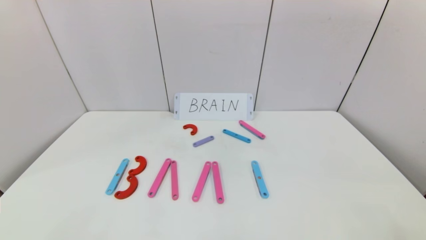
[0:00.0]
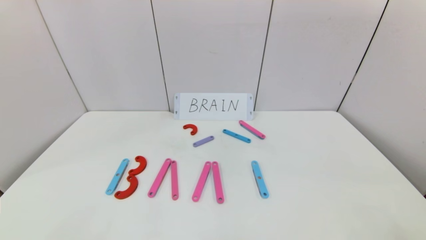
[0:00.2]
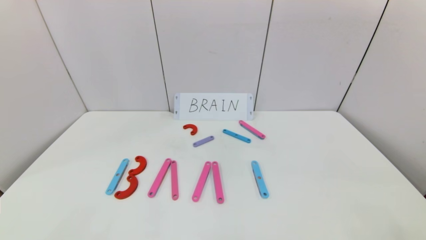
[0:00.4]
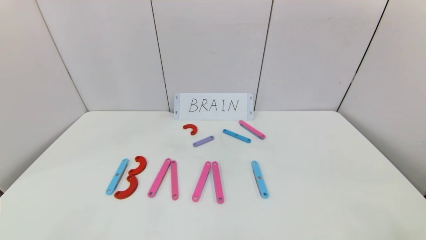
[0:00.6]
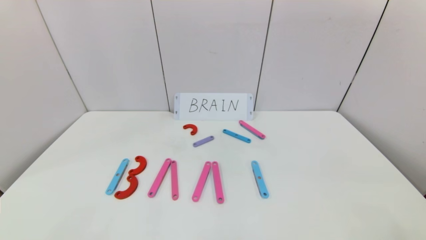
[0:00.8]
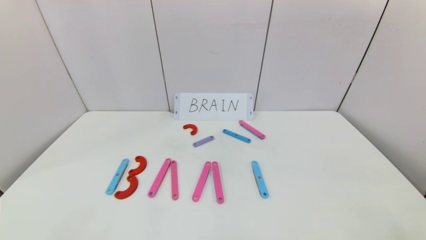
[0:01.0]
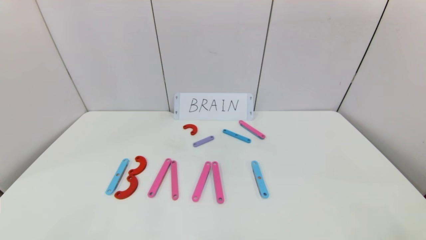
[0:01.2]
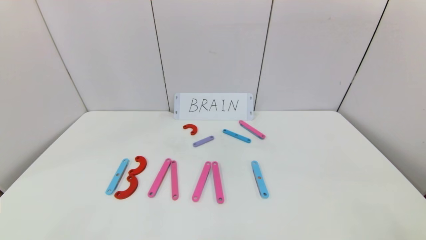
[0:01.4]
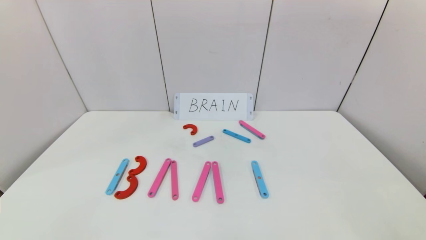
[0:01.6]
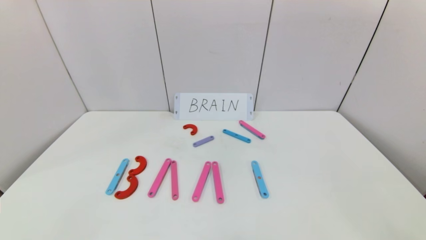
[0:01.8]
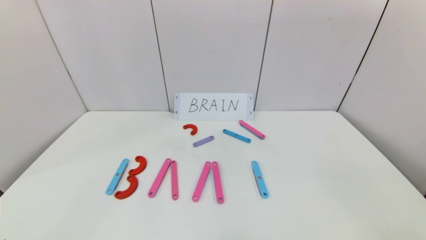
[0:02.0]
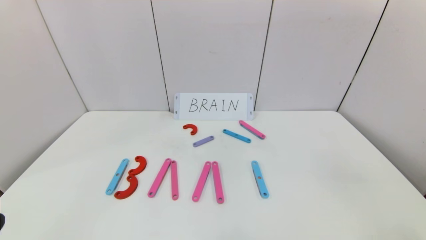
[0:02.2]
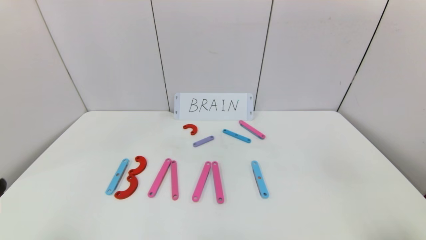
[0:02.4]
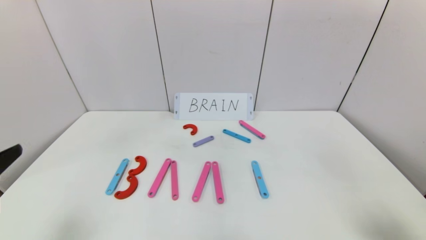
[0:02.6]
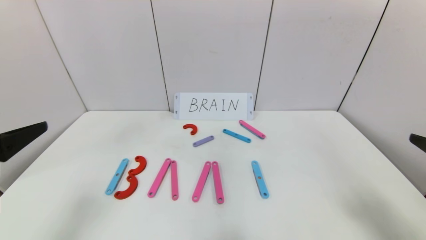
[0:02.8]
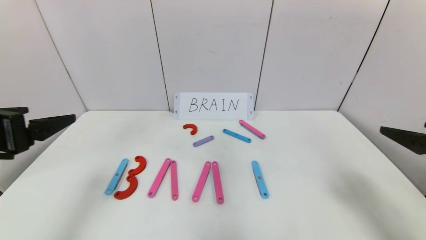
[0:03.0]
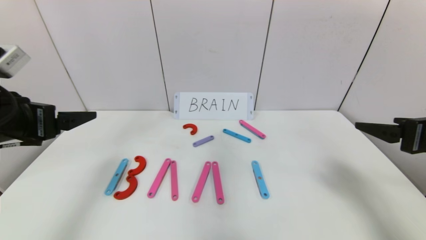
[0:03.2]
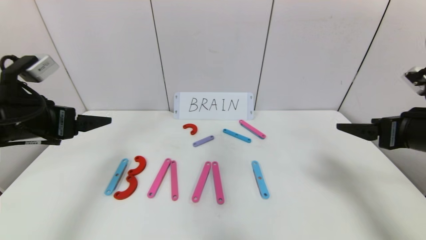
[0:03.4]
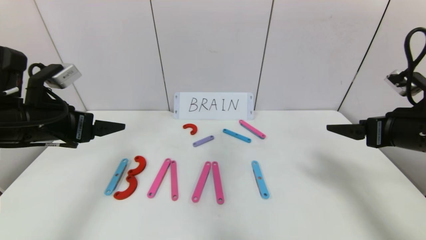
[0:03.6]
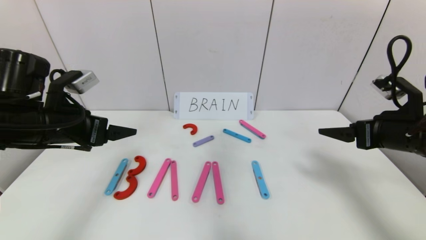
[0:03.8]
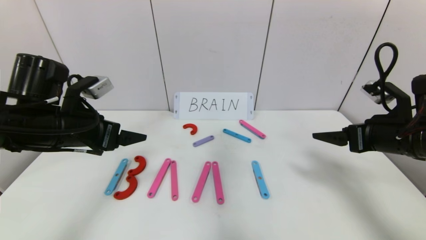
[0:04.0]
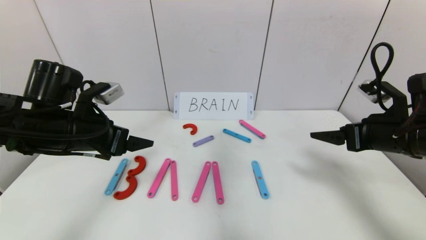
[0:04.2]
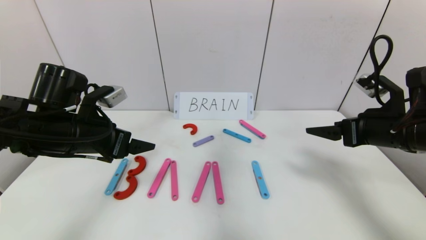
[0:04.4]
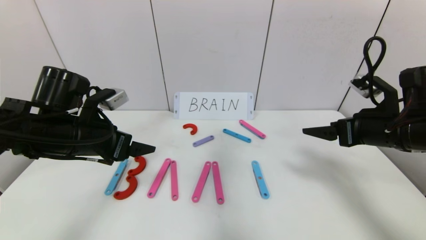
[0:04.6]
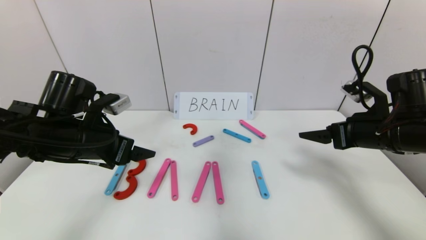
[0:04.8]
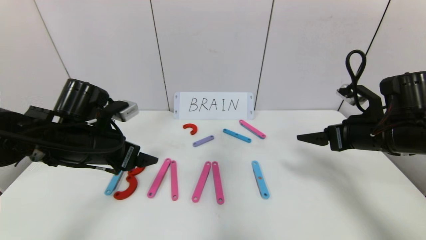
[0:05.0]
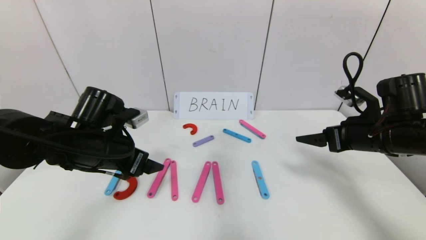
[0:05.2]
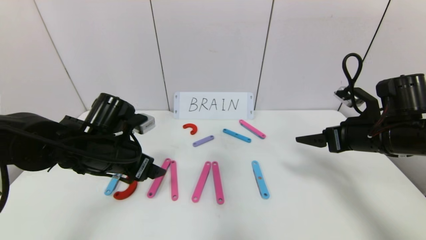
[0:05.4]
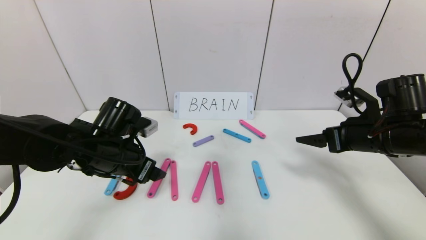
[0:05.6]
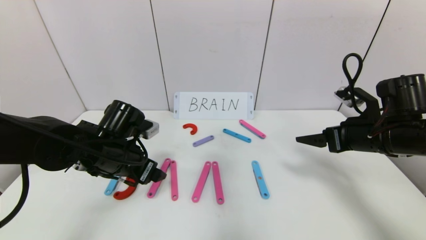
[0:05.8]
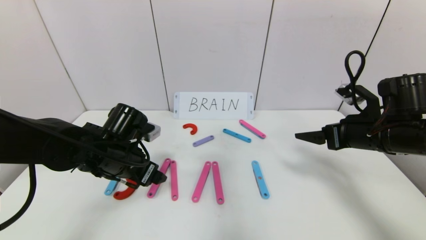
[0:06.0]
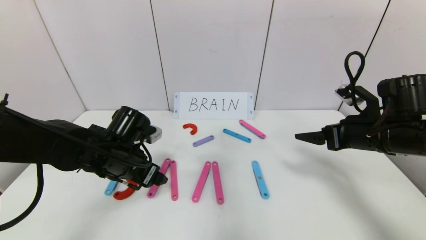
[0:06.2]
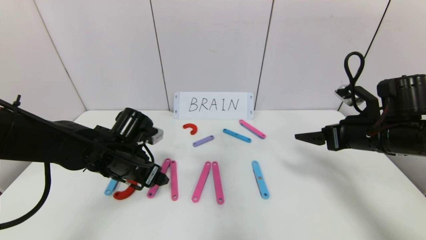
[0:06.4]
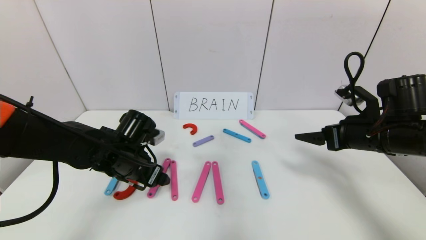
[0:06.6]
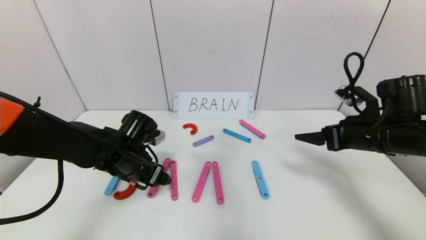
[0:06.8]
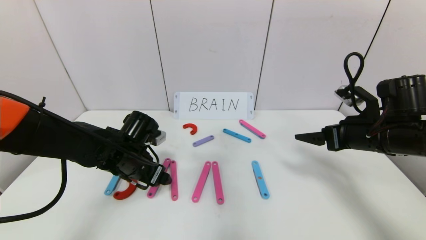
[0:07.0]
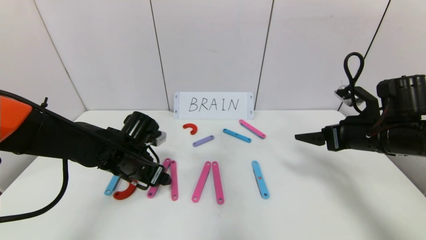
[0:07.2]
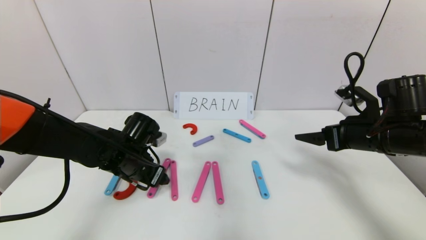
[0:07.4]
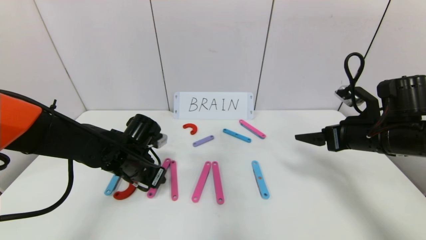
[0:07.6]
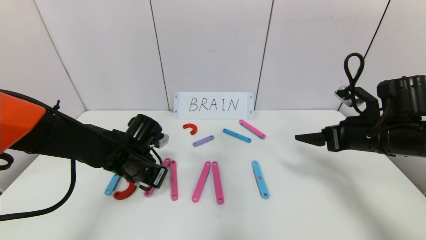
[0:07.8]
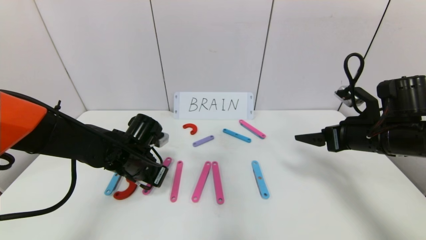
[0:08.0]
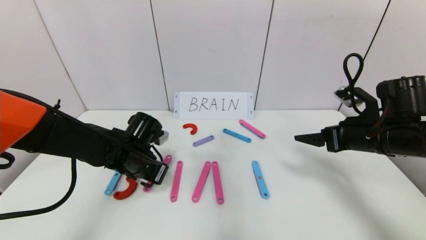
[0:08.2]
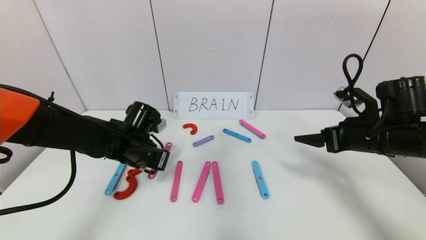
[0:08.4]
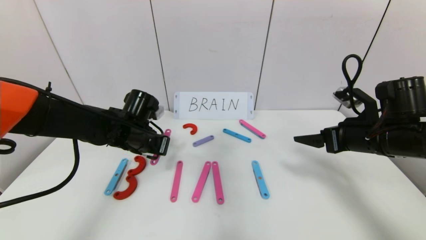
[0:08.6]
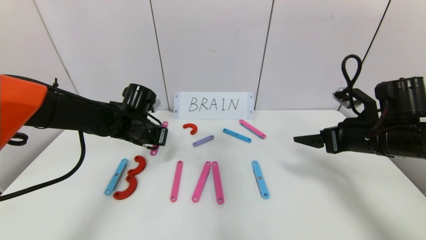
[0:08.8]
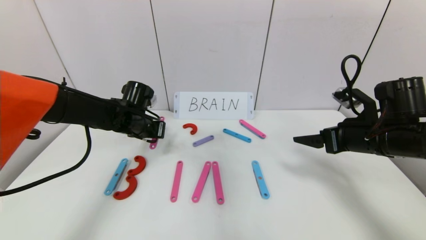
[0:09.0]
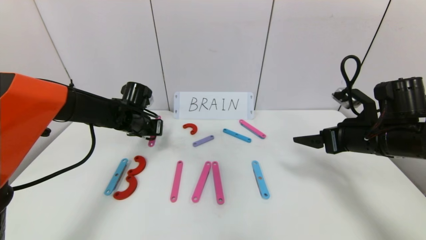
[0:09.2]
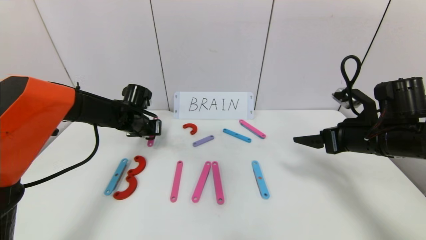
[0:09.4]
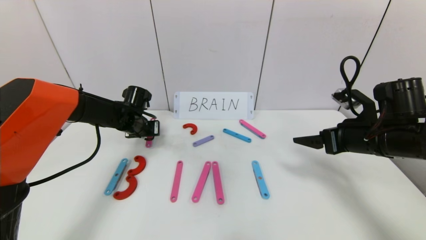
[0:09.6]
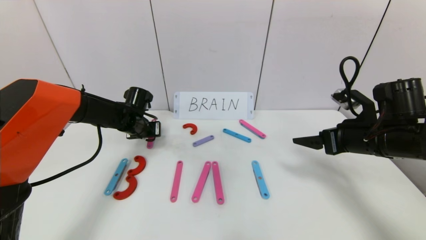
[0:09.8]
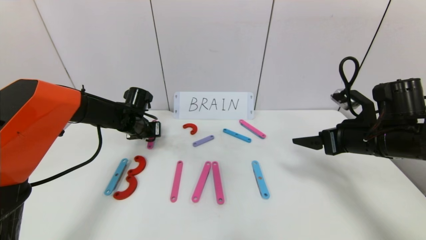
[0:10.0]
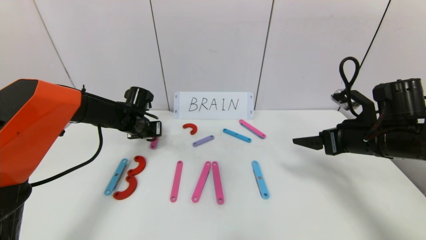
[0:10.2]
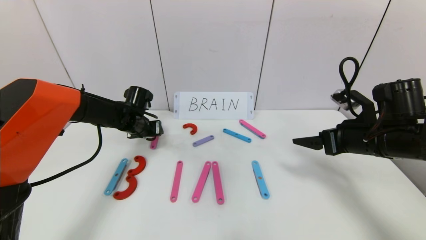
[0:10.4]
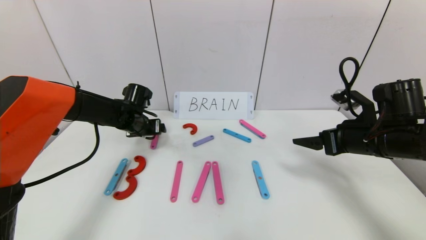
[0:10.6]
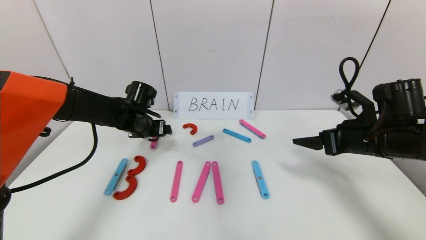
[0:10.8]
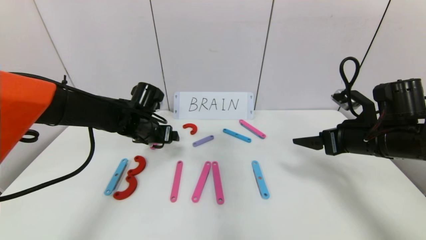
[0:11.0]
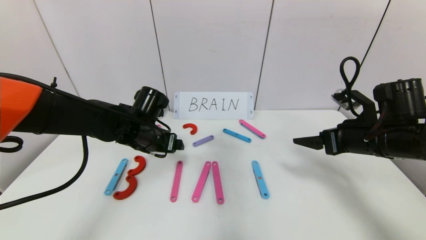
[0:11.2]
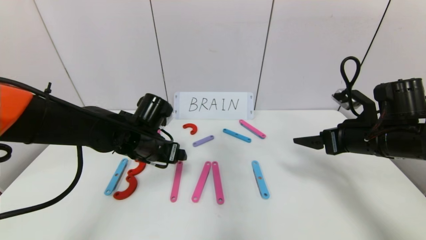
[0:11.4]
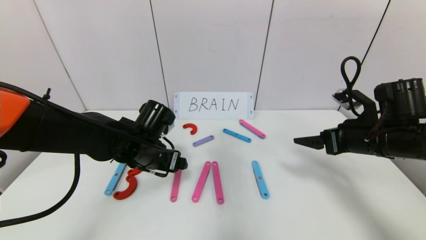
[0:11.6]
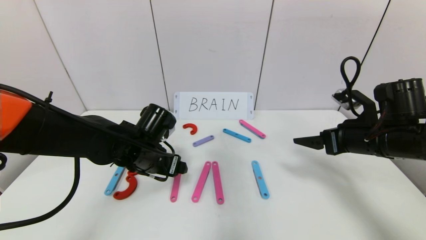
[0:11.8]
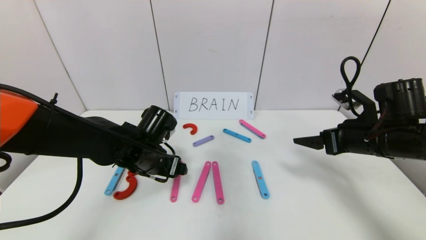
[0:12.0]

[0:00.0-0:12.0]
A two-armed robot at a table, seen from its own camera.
Task of the whole recording: rearrange the word baai as brain.
0:01.6 to 0:03.0: The two grippers go about 25 cm forward and upward.
0:03.0 to 0:04.4: The right gripper goes roughly 10 cm forward. Meanwhile the left gripper travels forward, to the right and downward by some 15 cm.
0:04.4 to 0:06.0: The left gripper moves downward, some 10 cm.
0:06.0 to 0:07.6: The left gripper closes.
0:07.6 to 0:09.0: The left gripper heads forward, covering approximately 10 cm, and closes.
0:09.0 to 0:10.4: The left gripper opens.
0:10.4 to 0:12.0: The left gripper goes some 15 cm backward and to the right.

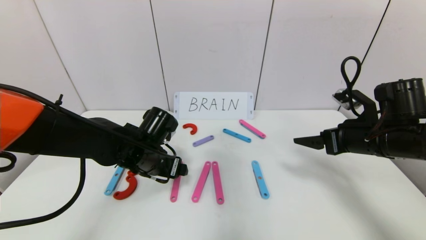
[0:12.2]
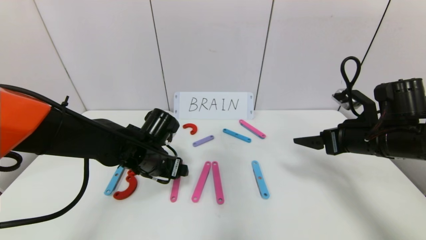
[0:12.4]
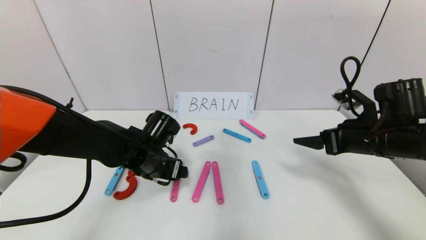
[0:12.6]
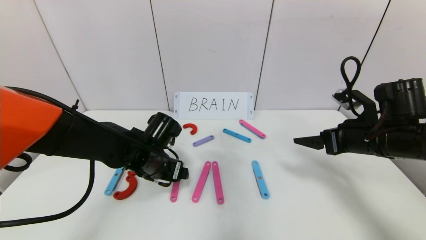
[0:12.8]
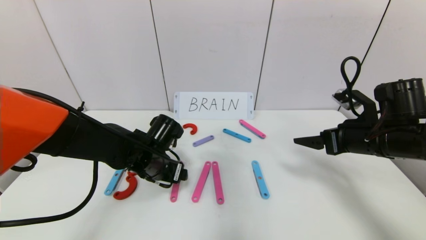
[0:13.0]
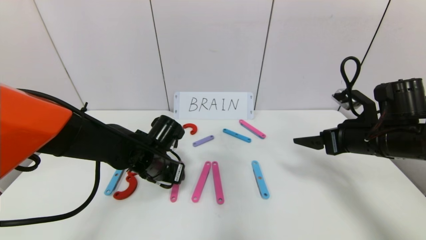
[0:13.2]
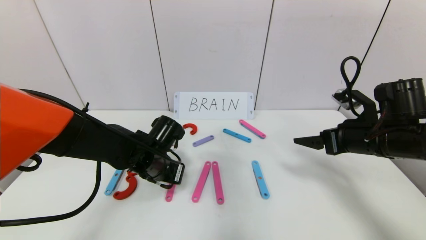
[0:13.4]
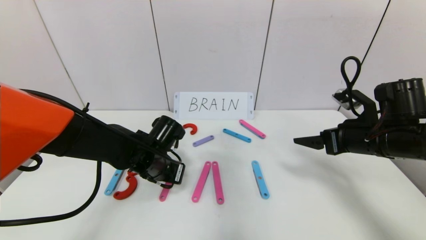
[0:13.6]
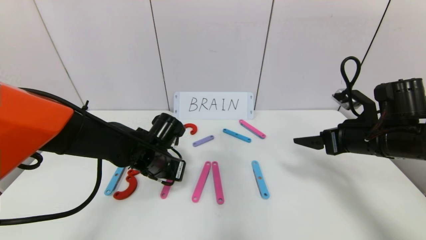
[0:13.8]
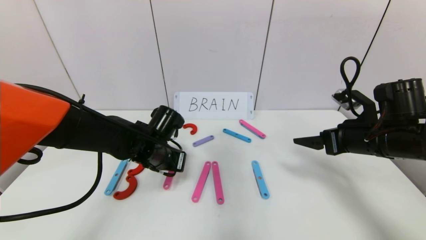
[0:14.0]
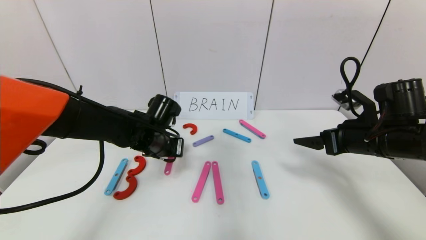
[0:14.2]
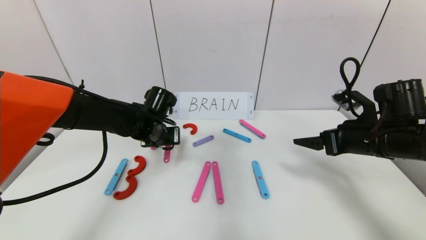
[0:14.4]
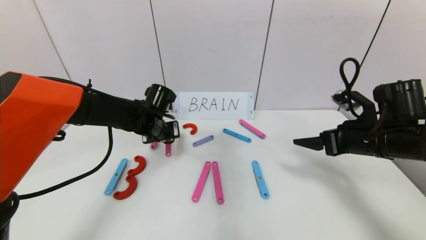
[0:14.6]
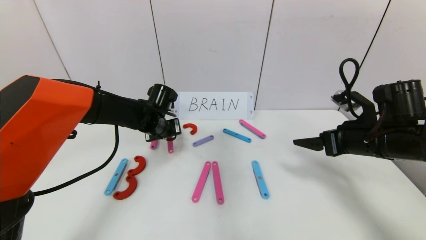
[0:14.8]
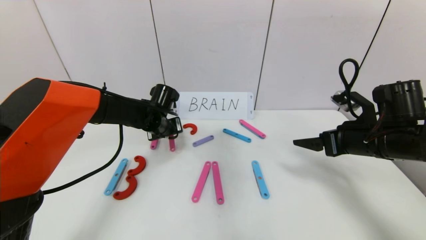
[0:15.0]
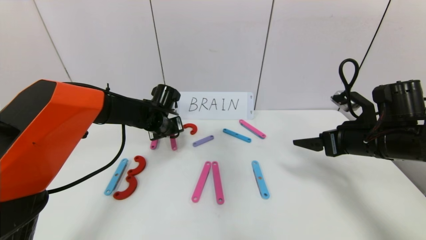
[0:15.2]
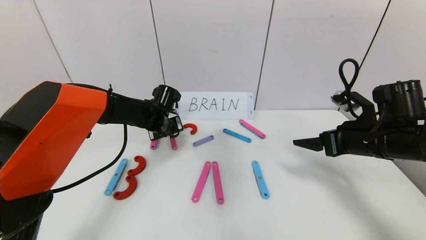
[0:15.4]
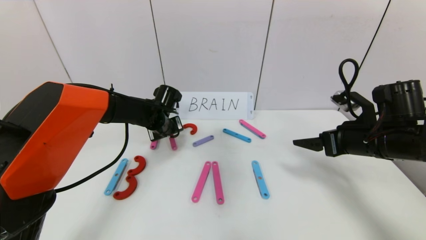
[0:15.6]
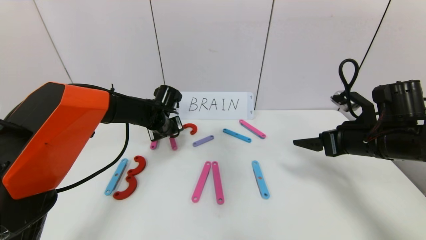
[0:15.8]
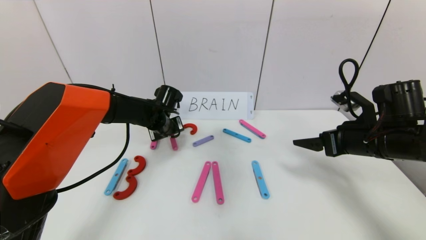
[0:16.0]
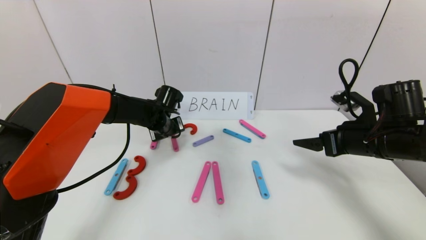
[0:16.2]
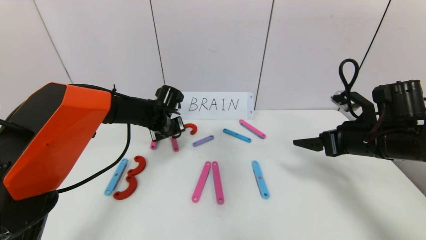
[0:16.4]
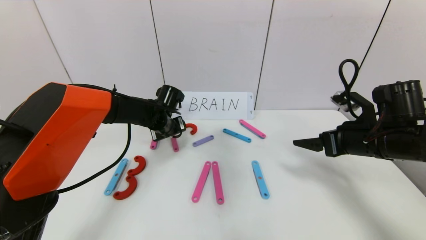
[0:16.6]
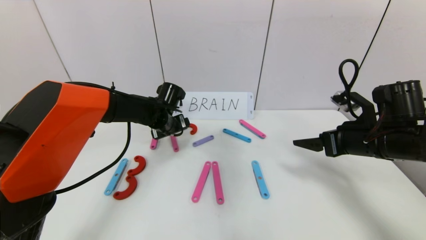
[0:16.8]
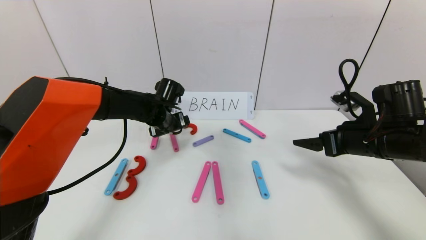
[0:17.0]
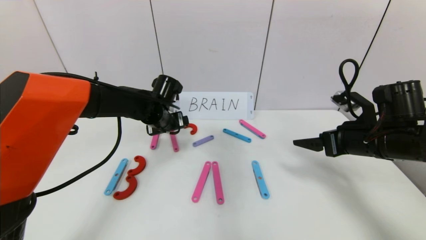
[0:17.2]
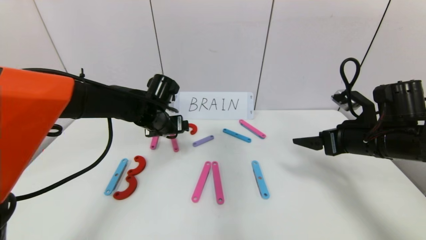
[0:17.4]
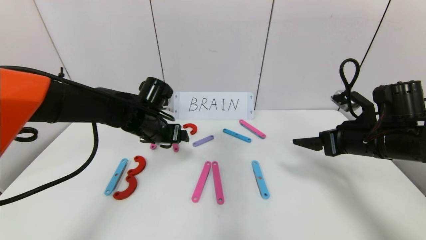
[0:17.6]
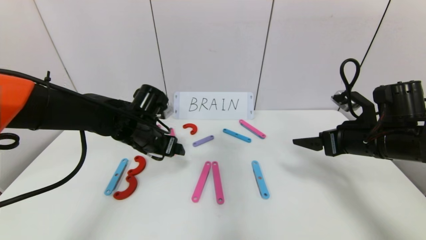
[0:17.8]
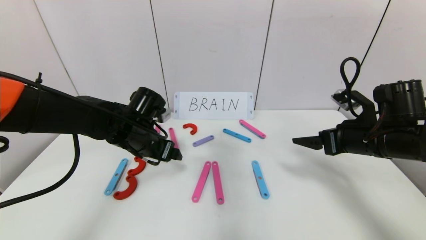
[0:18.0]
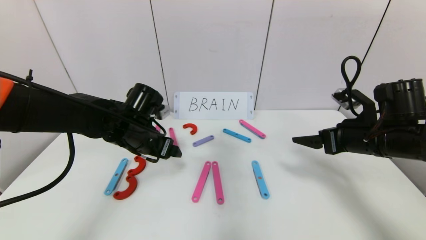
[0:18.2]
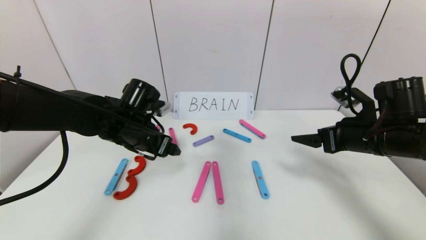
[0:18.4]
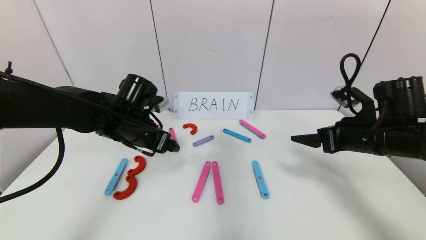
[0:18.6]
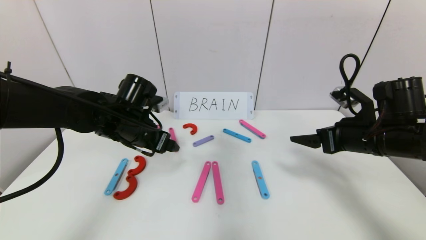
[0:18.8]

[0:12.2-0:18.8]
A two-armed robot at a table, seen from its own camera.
Task of the whole recording: rearrange the word baai as brain.
Step, 0:12.2 to 0:17.0: Disassemble the second character A.
0:12.2 to 0:13.8: The left gripper closes.
0:13.8 to 0:15.4: The left gripper shifts some 10 cm forward.
0:15.4 to 0:17.2: The left gripper opens.
0:17.2 to 0:18.8: The left gripper heads backward, covering about 10 cm.
